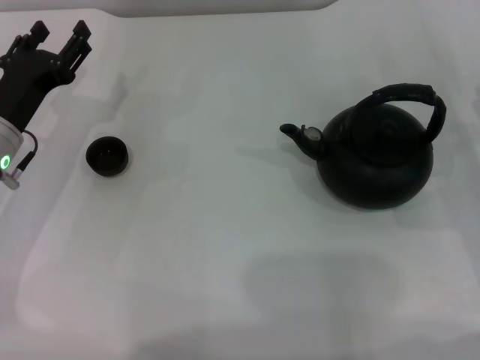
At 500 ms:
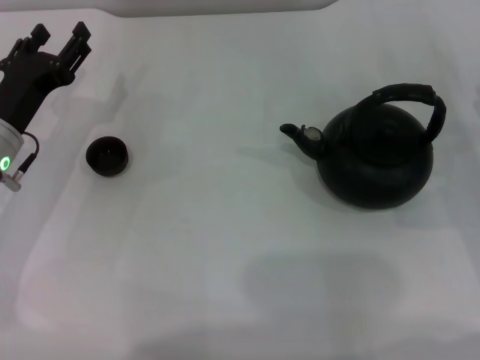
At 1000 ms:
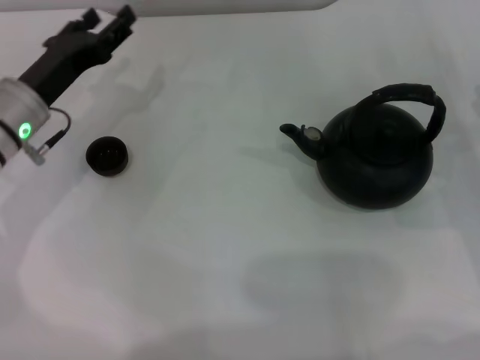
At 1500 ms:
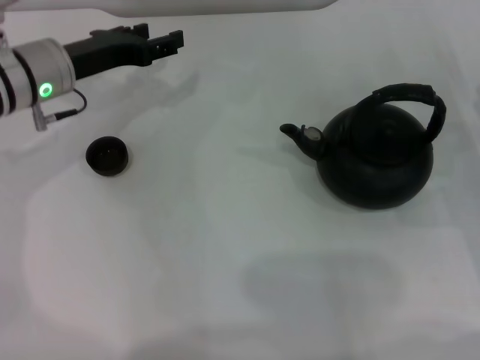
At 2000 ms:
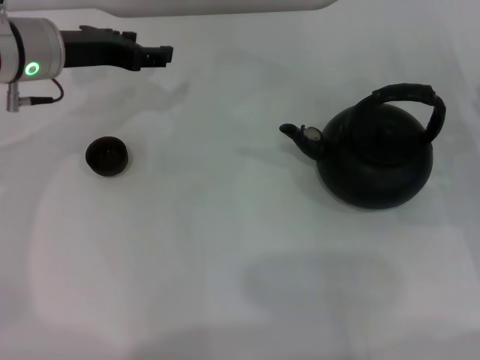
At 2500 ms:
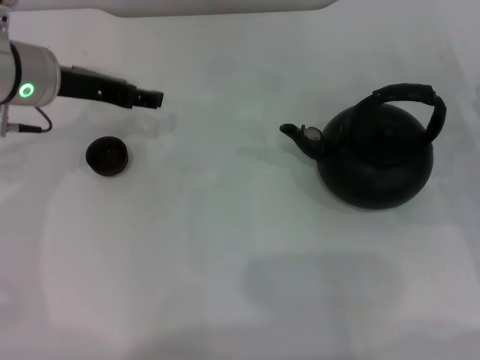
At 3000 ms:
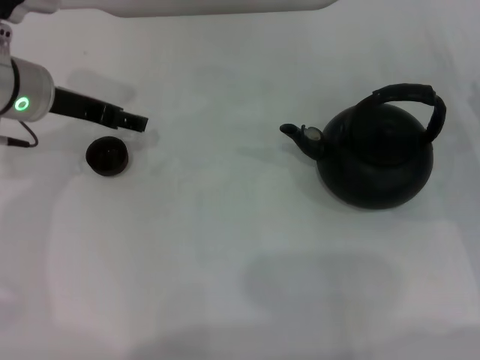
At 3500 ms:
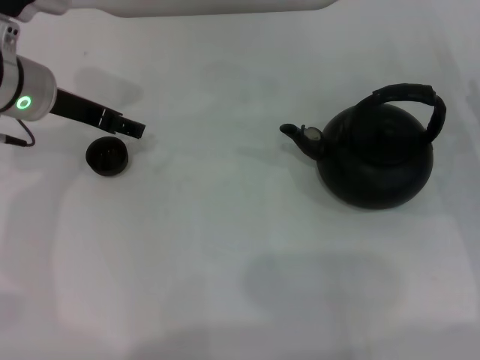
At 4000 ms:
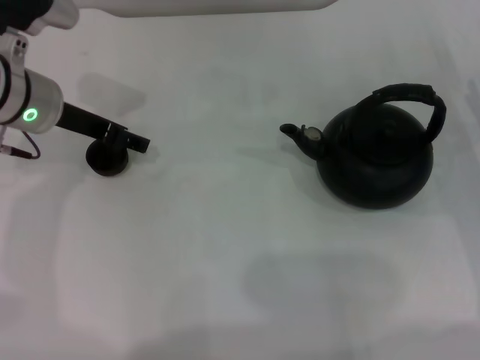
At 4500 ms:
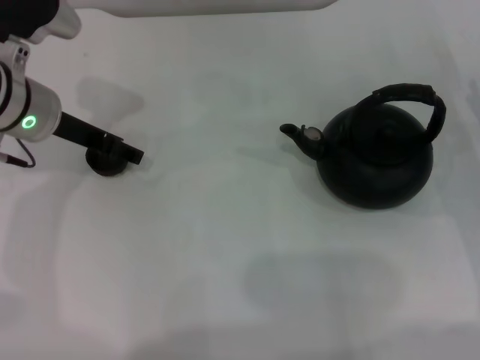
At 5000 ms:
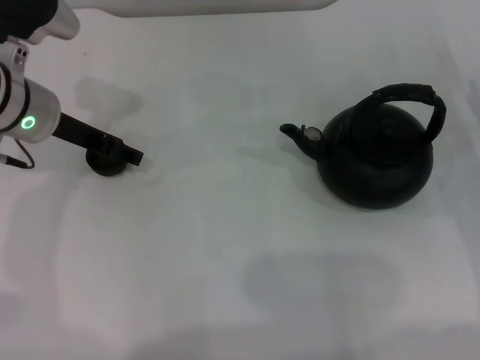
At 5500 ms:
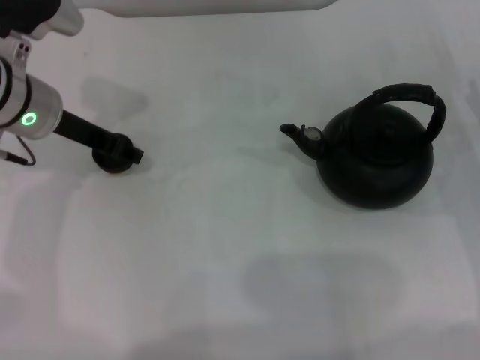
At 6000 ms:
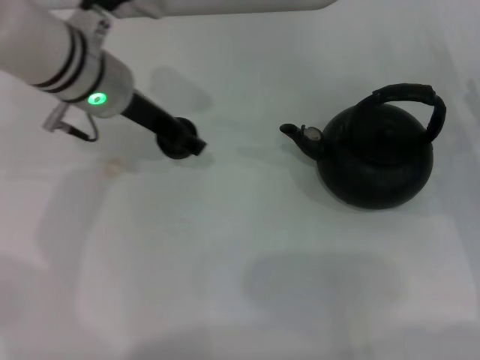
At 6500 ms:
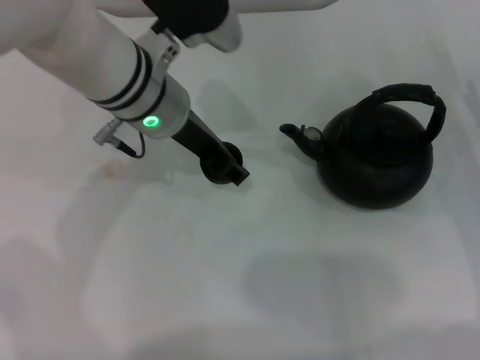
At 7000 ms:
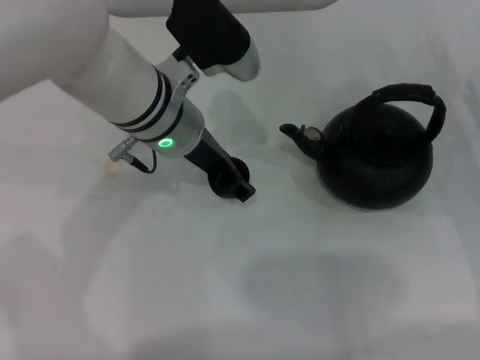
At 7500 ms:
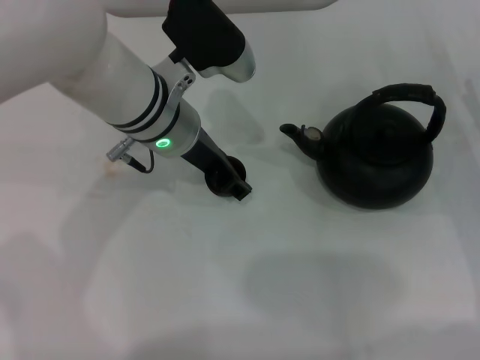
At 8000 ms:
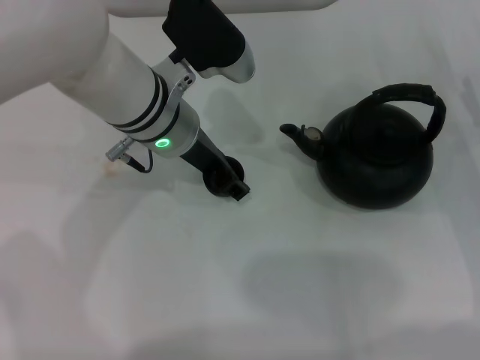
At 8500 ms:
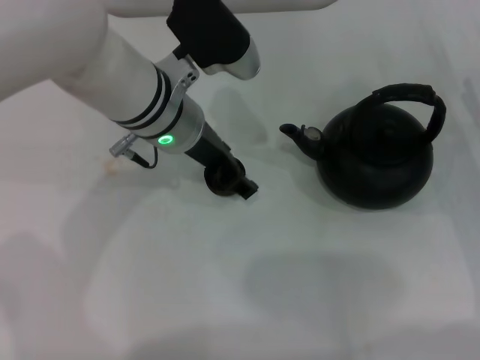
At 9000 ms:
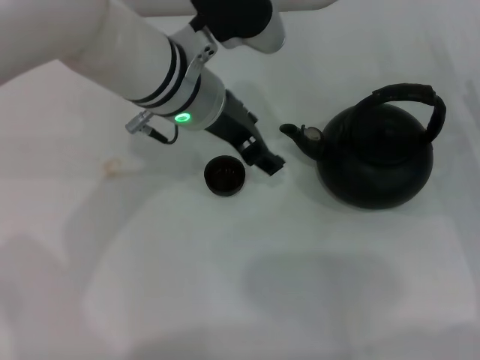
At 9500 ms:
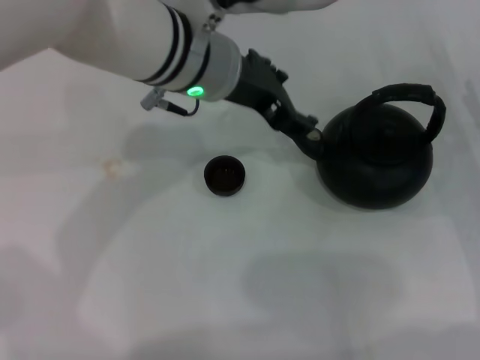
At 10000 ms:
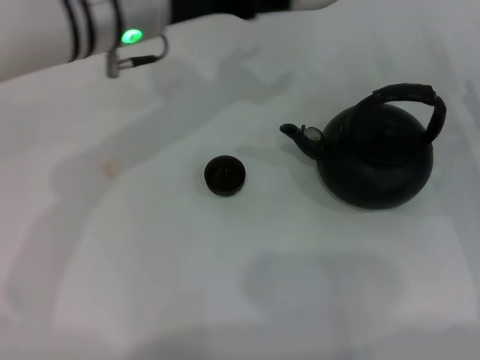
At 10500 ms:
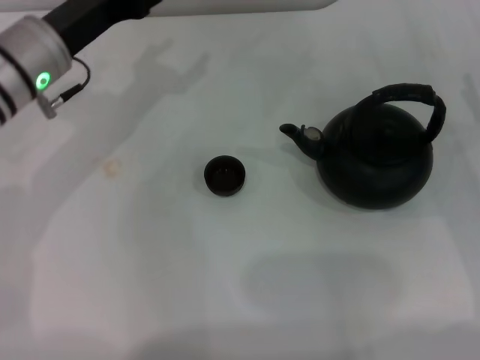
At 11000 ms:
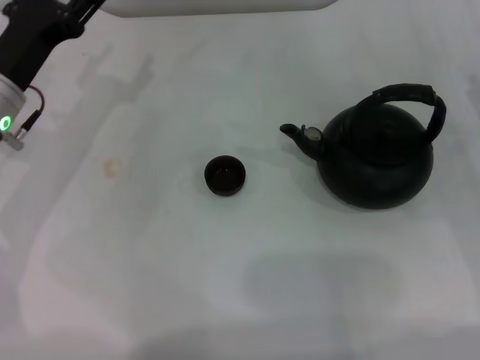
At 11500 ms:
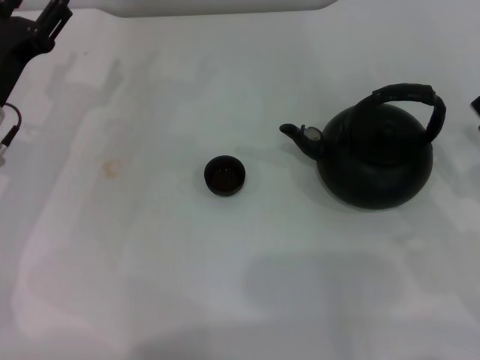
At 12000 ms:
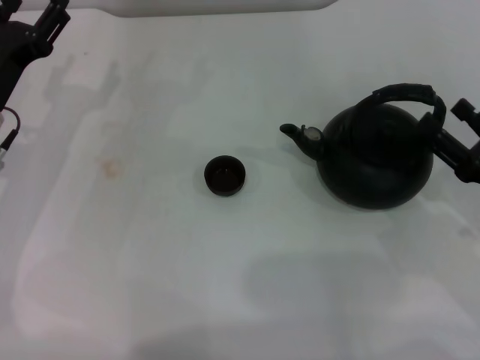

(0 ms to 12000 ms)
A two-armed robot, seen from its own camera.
Task of the whole recording: Grasp the handle of the teapot with one hand and pour tea into the teacup.
Step, 0 ms - 5500 ms: Pick up the teacup with the left gripper.
Step, 6000 ms - 9000 ms: Place the teacup in the center of view with the left gripper.
0 ms - 2000 ms: The left gripper moves upward and forward, roughly 10 cm.
2000 ms - 4000 ms: The left gripper opens up.
4000 ms - 6000 ms: The left gripper shifts some 5 cm to the right, and closes up.
6000 ms - 8000 ms: The left gripper is displaced to the right by roughly 5 cm.
8000 ms - 10000 ms: The left gripper heads upward, covering roughly 5 cm, and opens its fingers.
10000 ms - 12000 ms: The right gripper is displaced backward by about 5 cm. The left gripper goes approximately 20 cm to the left and downward.

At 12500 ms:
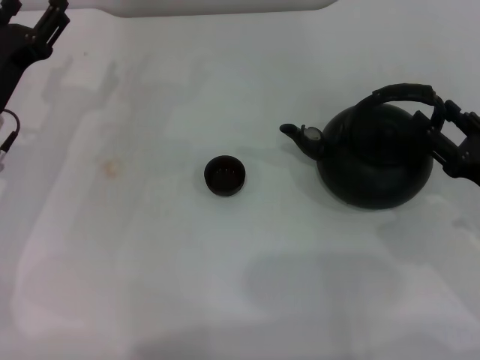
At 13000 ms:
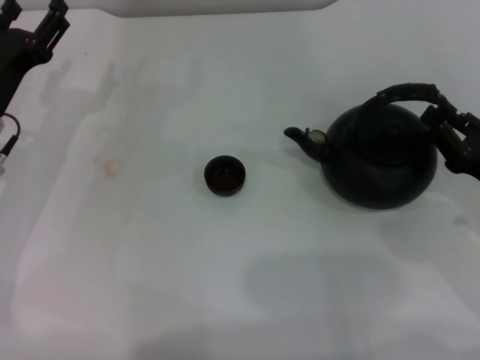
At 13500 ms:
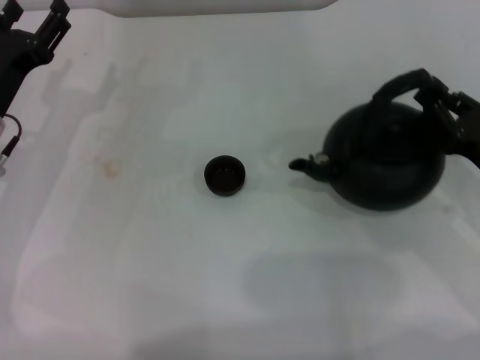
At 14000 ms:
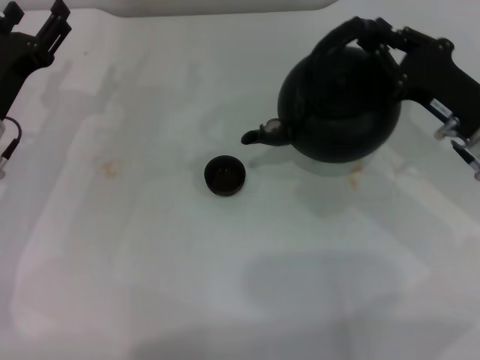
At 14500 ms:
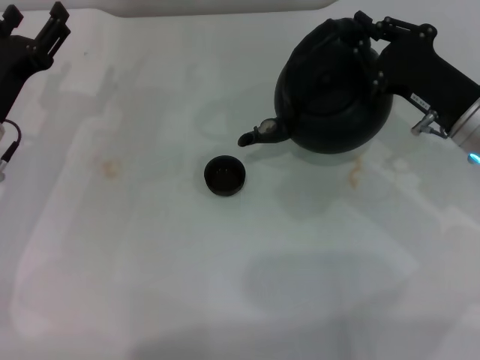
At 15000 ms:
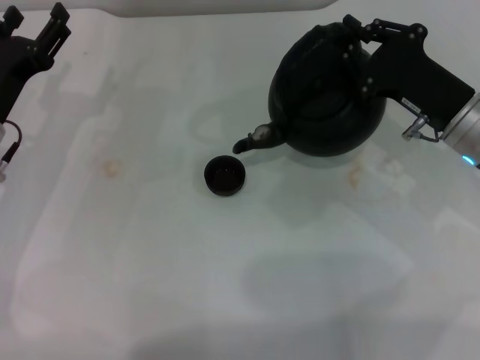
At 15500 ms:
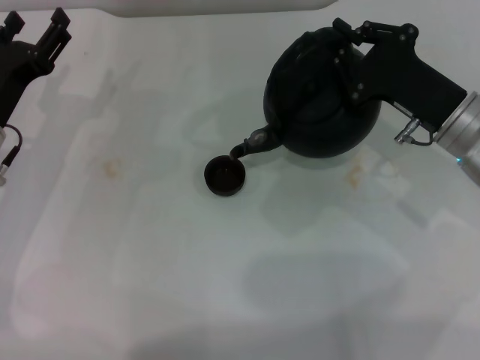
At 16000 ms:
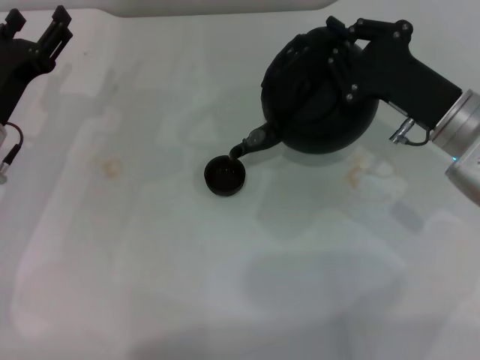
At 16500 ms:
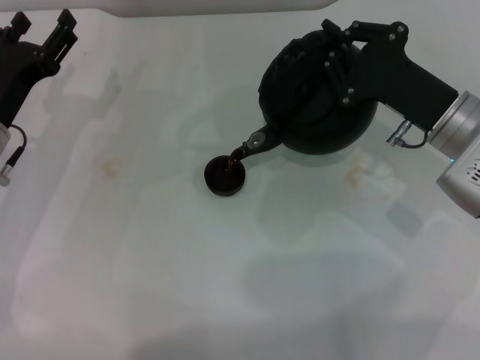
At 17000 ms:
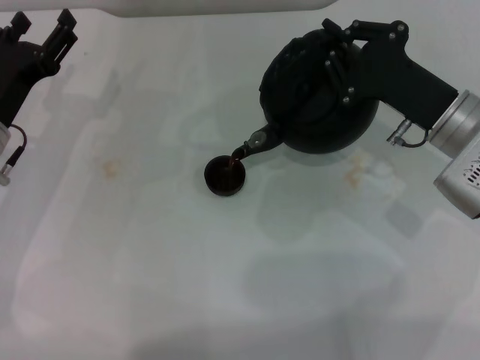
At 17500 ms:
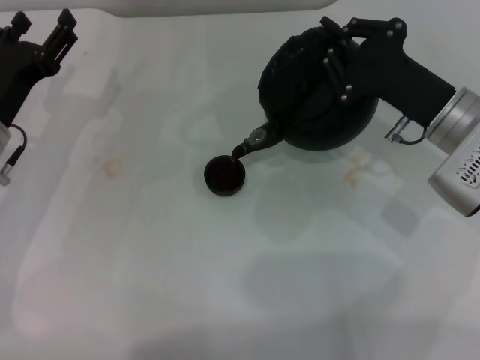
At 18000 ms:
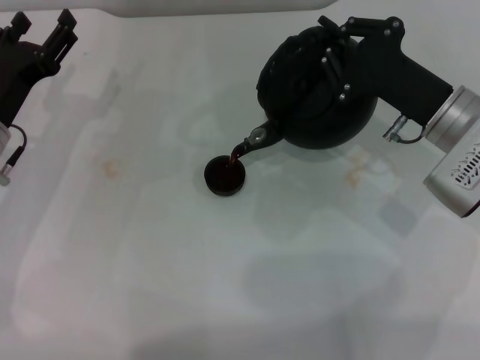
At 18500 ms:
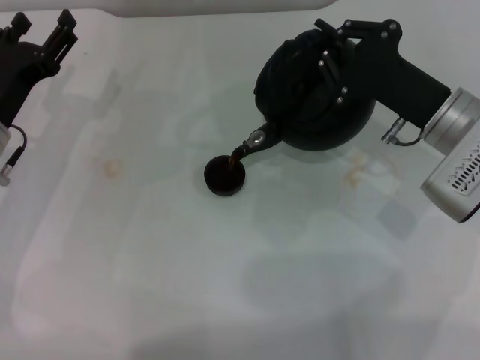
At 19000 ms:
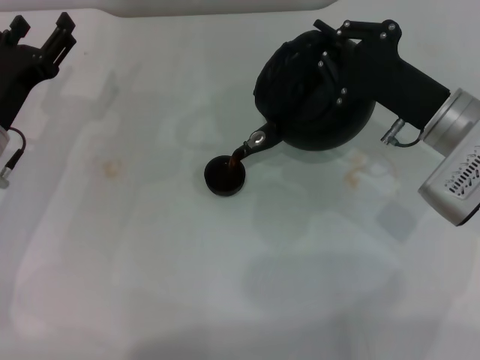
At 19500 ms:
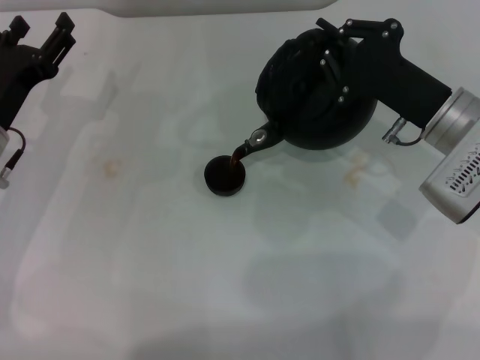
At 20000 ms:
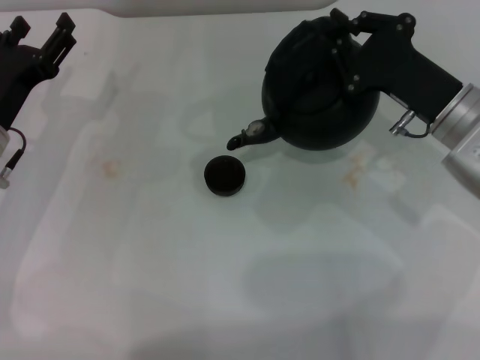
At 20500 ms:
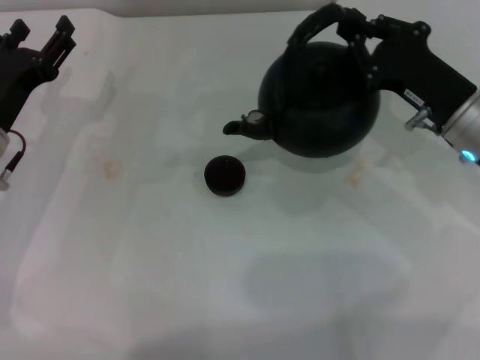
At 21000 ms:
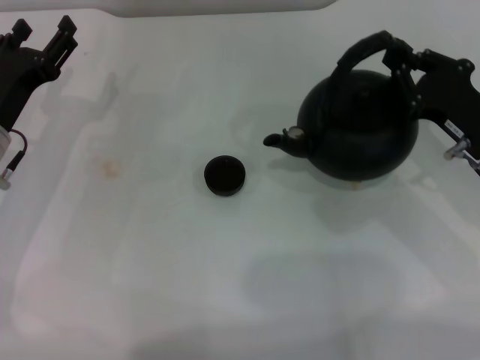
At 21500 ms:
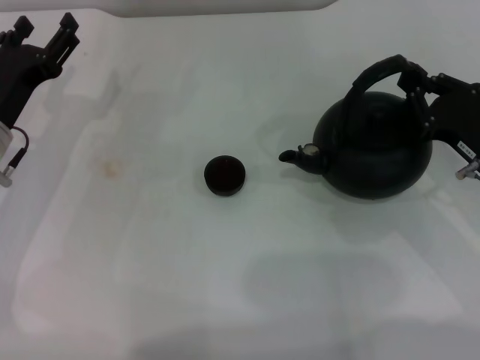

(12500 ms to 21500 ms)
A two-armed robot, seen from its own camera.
Task of the whole recording: Grasp the handle of the teapot with one hand and pour tea into the teacup.
Step, 14500 ms - 20000 ms: Pour tea into the teacup with the right gripper.
12500 ms - 14500 ms: The right gripper goes roughly 10 cm forward and to the left, and closes its fingers.
17000 ms - 19500 ms: The grippers stay close to where they were, moving slightly.
19500 ms - 21500 ms: The right gripper moves to the right, roughly 5 cm.

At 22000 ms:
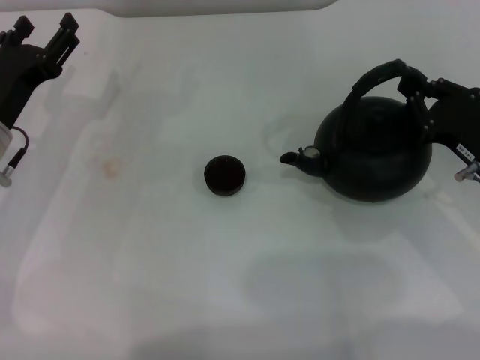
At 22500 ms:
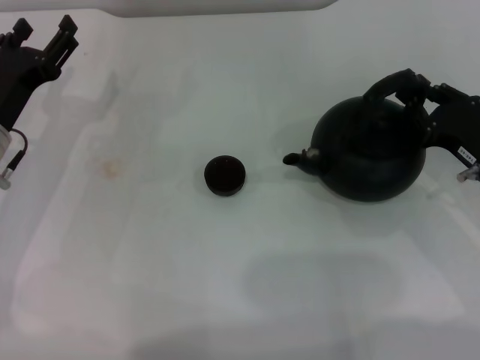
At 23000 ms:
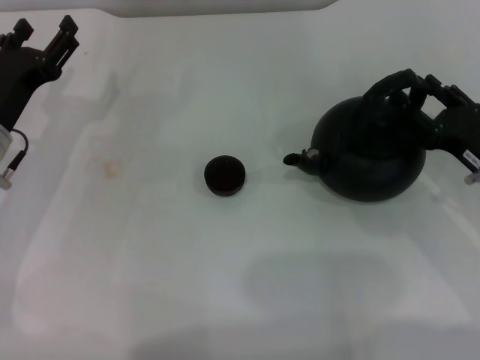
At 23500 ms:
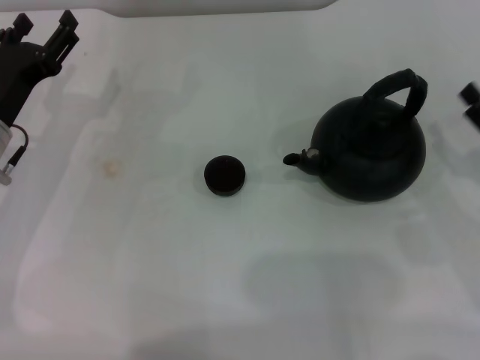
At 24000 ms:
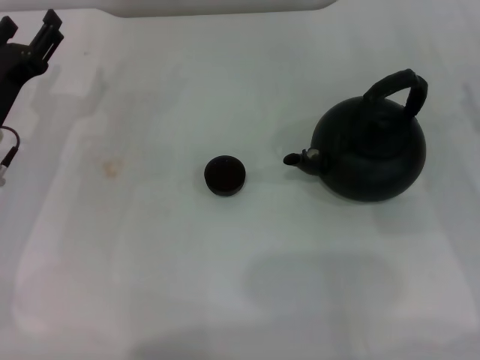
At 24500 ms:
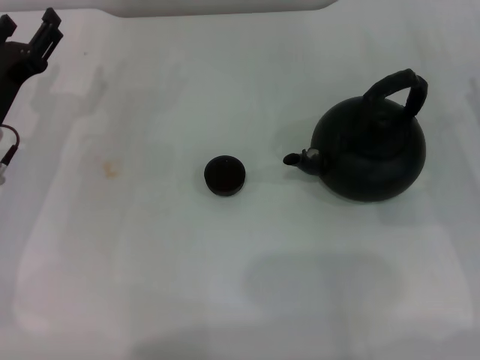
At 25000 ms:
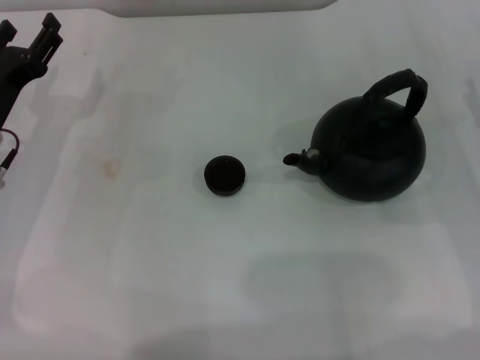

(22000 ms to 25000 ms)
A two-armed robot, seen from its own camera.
Task of the whole recording: Grasp the handle of the teapot with one hand and pour tea into the teacup.
22000 ms - 23500 ms: The right gripper moves approximately 5 cm, and opens.

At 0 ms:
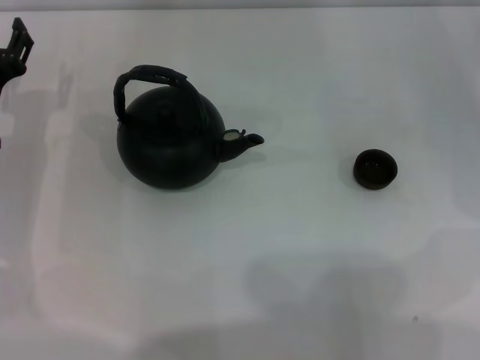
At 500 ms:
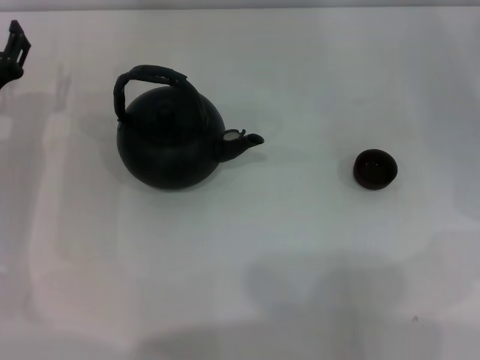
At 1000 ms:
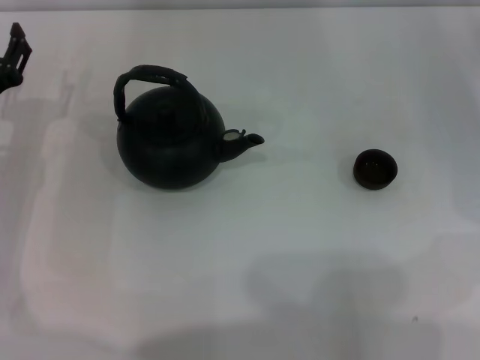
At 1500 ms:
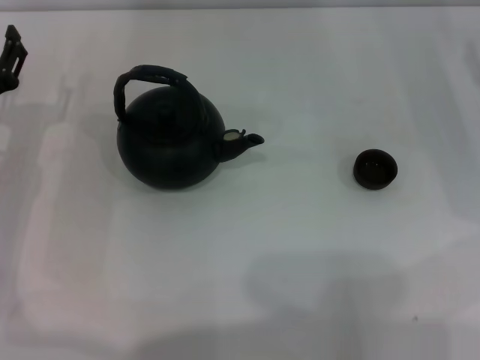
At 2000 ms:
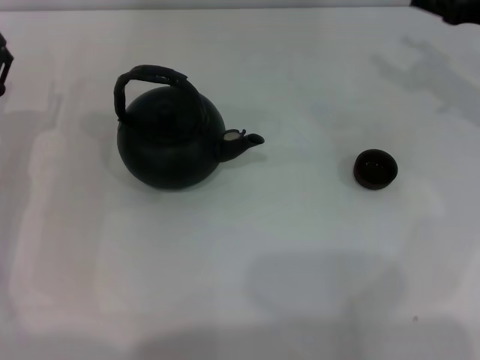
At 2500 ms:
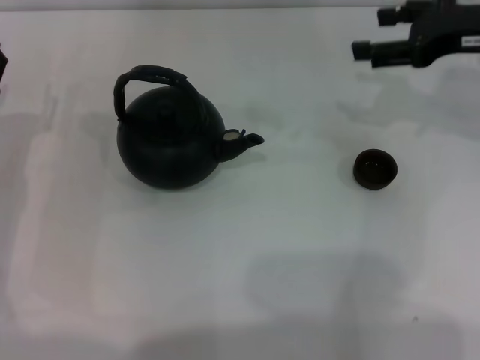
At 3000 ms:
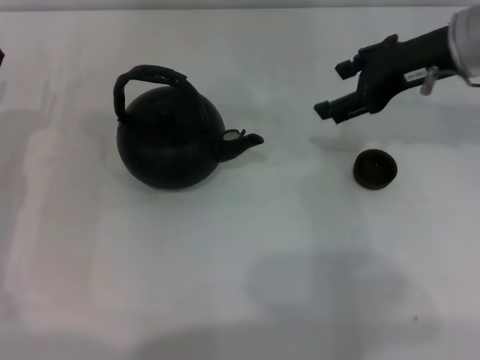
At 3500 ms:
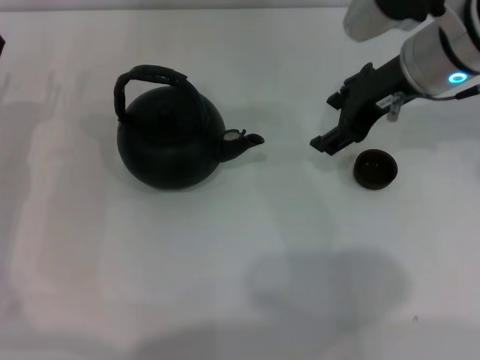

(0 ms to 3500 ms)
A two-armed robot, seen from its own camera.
Task of the whole recording: Grasp the handle of the teapot with one hand and pour tea into the teacup.
0 ms - 2000 ms: The right gripper travels upward by roughly 10 cm.
2000 ms - 3500 ms: The right gripper travels to the left by roughly 15 cm.
